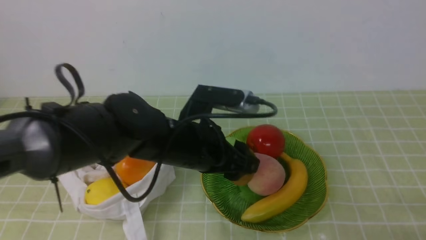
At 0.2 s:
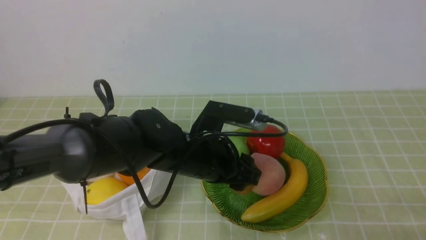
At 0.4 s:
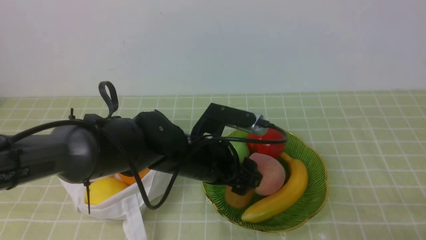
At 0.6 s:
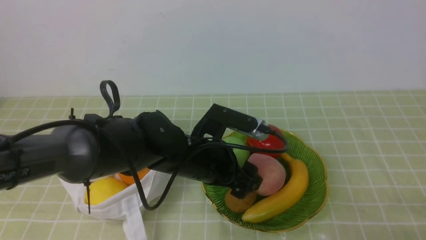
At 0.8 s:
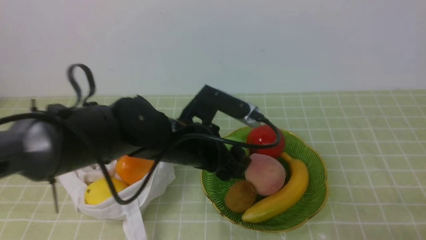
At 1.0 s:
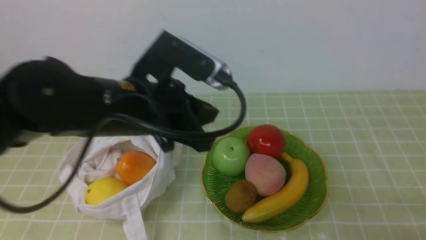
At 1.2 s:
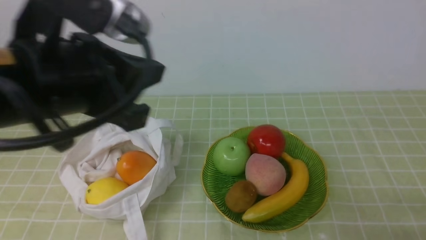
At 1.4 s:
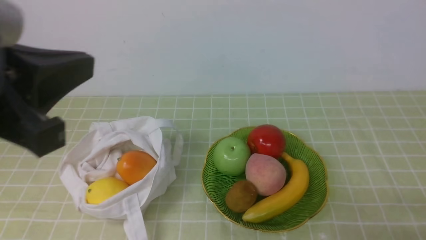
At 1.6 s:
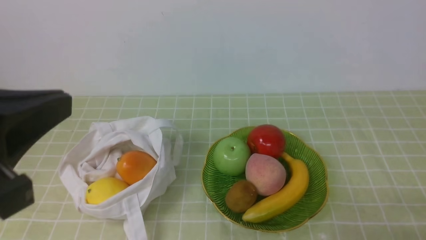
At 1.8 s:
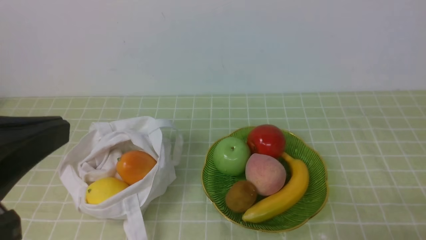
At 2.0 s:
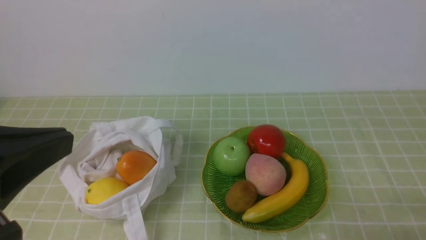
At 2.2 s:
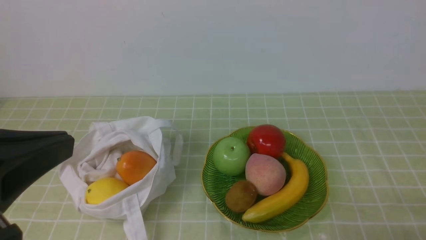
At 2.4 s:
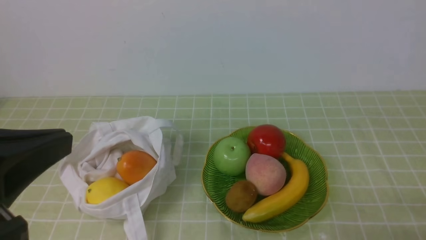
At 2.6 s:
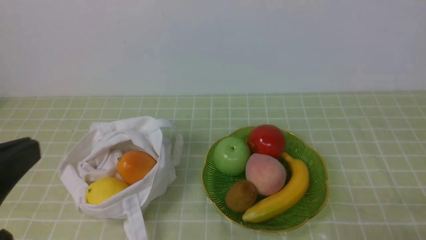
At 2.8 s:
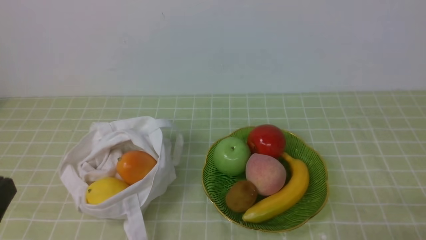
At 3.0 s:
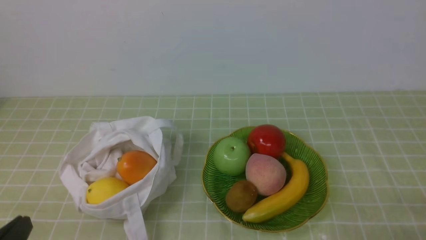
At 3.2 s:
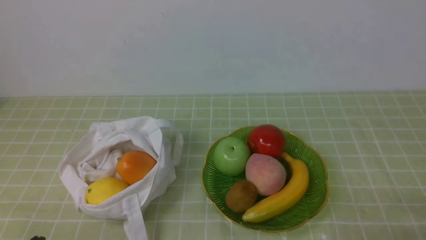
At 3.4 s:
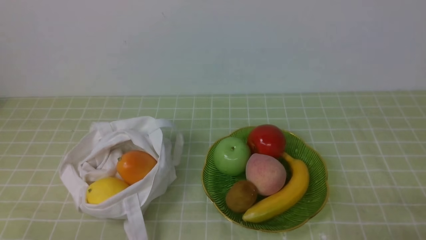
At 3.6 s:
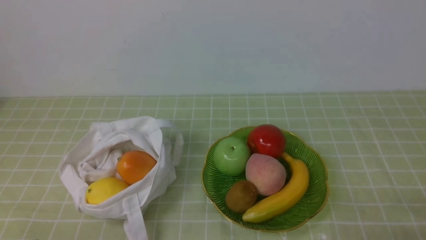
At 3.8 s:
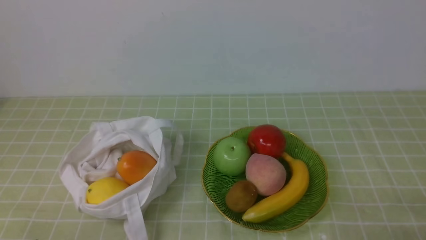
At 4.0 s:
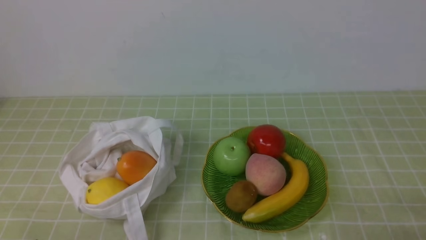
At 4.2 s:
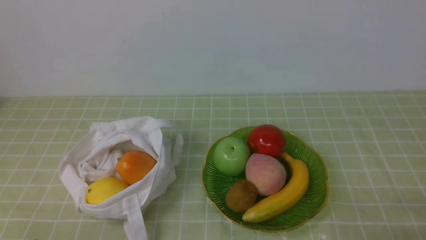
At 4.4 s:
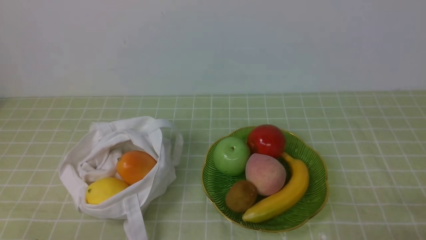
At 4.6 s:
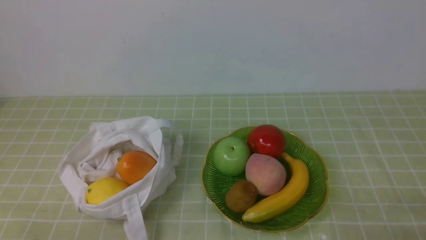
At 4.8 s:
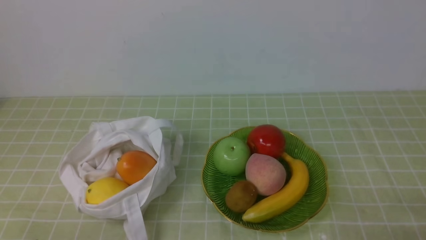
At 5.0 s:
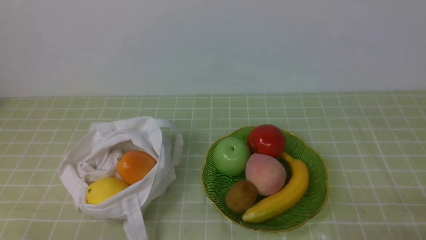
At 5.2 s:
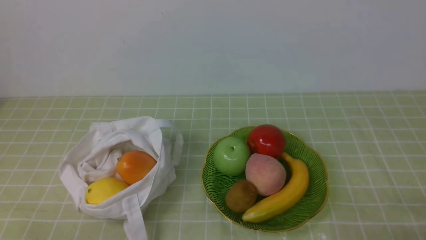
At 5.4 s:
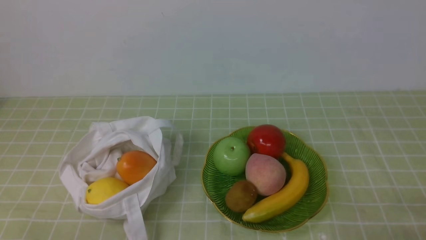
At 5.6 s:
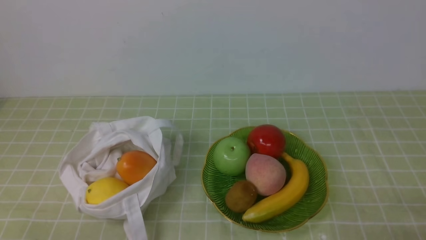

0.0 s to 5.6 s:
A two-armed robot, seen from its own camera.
Step, 0.0 to 0.6 s: use the left arm to put the kiwi into the empty plate on the right.
0.0 to 1.4 s: The left gripper heads upward, backward and to the left, covering about 20 cm, and closes its fingers.
1.4 to 2.8 s: The left gripper heads backward, downward and to the left, covering about 15 cm.
4.2 to 5.6 s: Neither gripper changes place.
